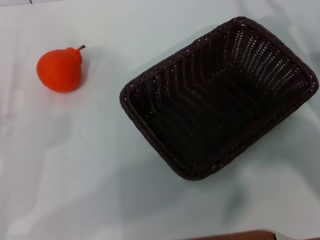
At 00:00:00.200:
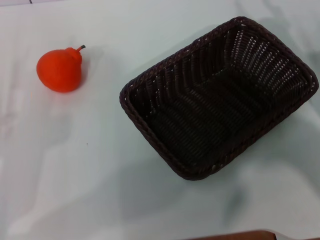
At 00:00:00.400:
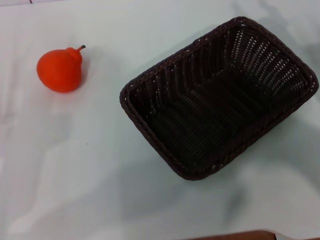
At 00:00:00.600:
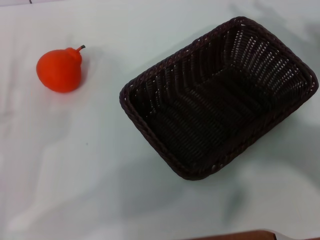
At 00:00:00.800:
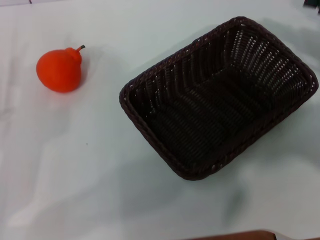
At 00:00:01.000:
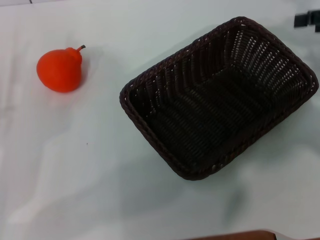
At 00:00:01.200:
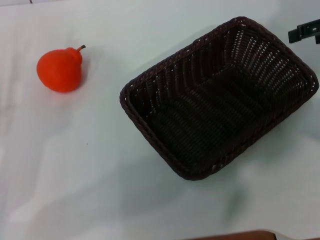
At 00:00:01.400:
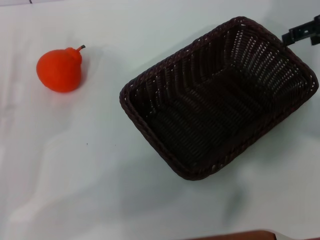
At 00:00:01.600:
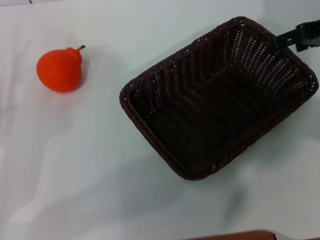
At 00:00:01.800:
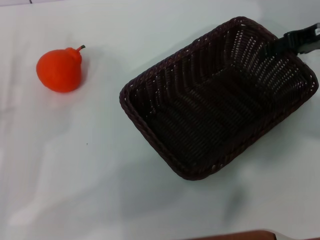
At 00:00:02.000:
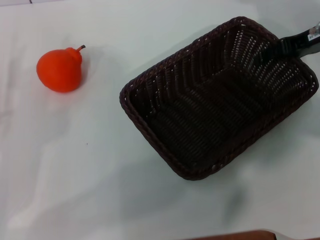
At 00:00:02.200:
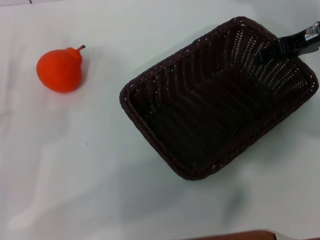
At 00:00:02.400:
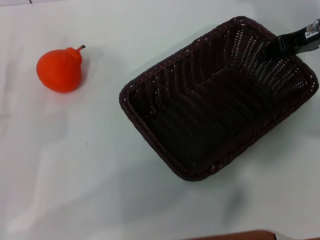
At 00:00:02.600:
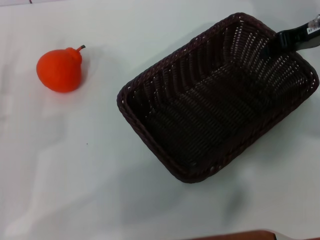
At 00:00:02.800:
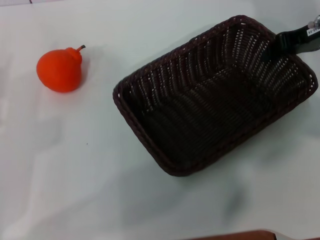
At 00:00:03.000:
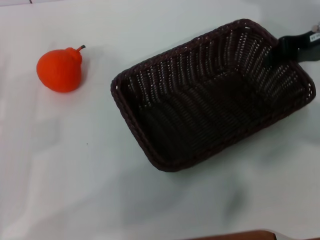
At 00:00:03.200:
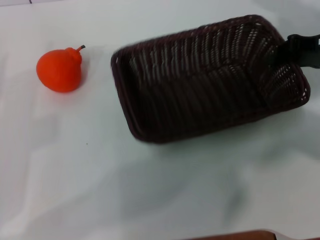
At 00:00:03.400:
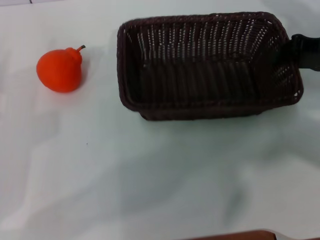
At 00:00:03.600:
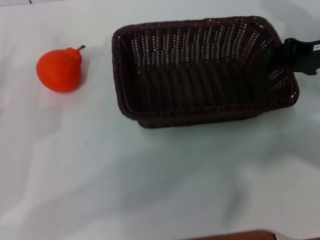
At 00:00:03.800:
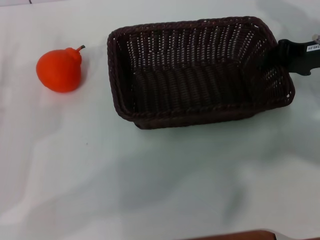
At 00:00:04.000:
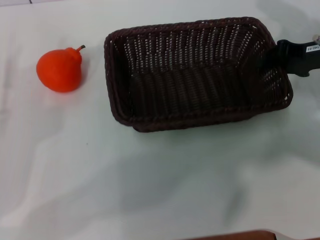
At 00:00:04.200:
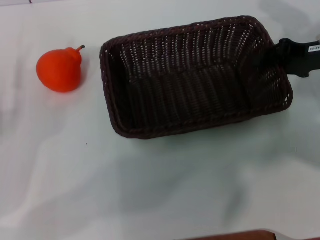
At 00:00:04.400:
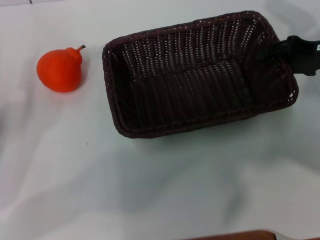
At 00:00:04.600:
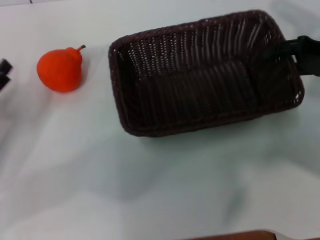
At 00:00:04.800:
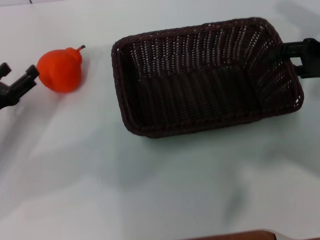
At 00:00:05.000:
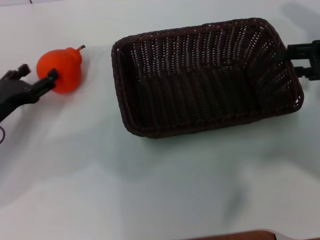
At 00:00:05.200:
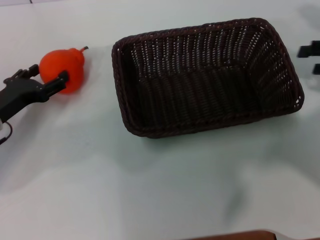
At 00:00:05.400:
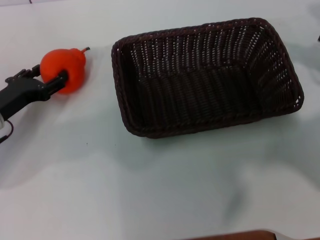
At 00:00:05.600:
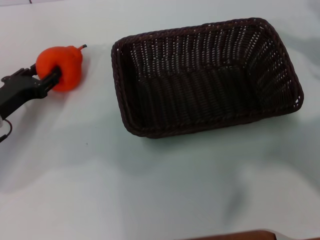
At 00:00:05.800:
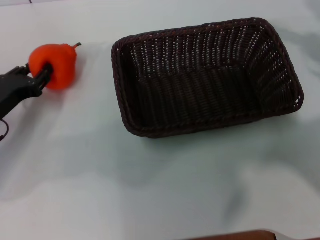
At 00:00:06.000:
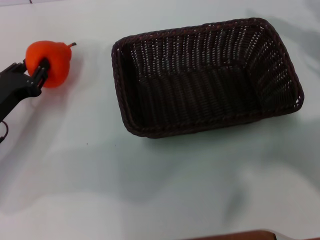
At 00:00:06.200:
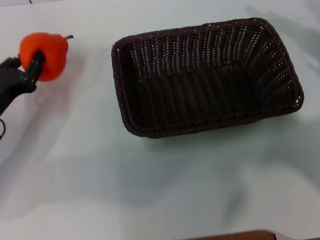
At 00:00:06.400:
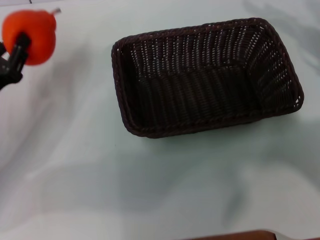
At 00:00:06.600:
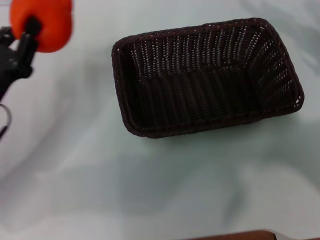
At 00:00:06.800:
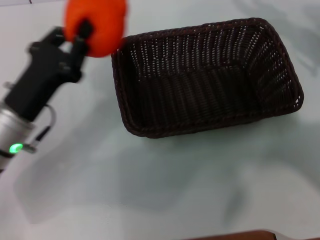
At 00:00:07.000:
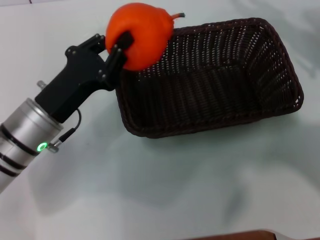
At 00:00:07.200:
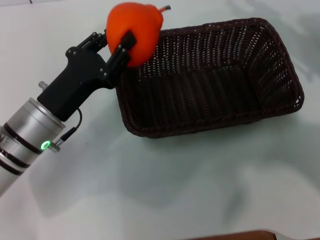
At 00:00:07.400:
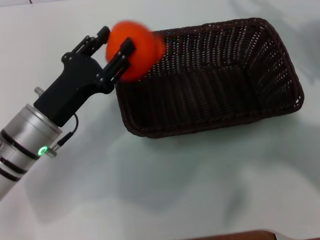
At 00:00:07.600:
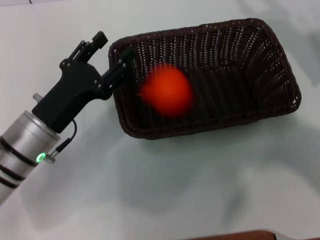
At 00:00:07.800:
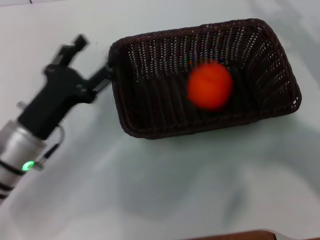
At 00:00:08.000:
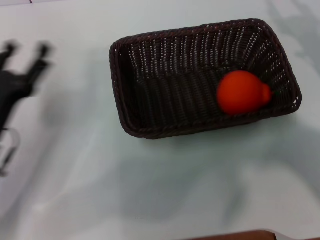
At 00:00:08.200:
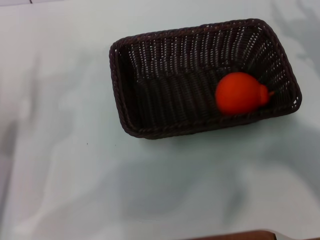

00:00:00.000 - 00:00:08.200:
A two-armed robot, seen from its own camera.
Task of the whole recording: the right gripper pick up the black basket and place it horizontally in the middle of the table, the left gripper pick up the orange and place it into the black basket.
Step, 00:00:00.000 - 00:00:02.600: Pick up the dark basket with the right gripper.
Step, 00:00:02.800 - 00:00:04.800: Place the dark basket in the center of view with the right gripper.
Step, 00:00:05.000 - 00:00:06.200: Pick up the orange with the left gripper.
Step, 00:00:06.400 - 00:00:07.400: Place the orange into the dark basket with the left gripper.
00:00:00.000 - 00:00:01.600: The right gripper goes about 15 cm upward and forward.
00:00:01.600 - 00:00:03.200: The right gripper closes up.
00:00:03.200 - 00:00:05.000: The left gripper shifts roughly 10 cm forward; the right gripper changes place by approximately 5 cm, and opens up.
00:00:05.000 - 00:00:06.600: The left gripper changes place by some 5 cm, and closes.
00:00:06.600 - 00:00:08.200: The right gripper travels downward by some 10 cm. The left gripper goes to the right and returns, about 10 cm each way, and opens.

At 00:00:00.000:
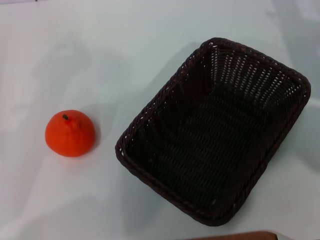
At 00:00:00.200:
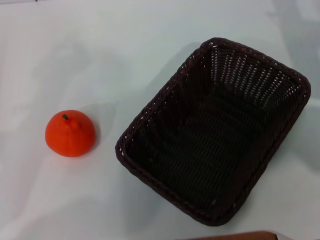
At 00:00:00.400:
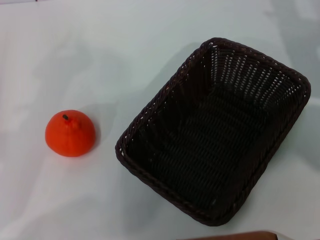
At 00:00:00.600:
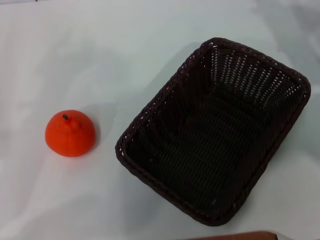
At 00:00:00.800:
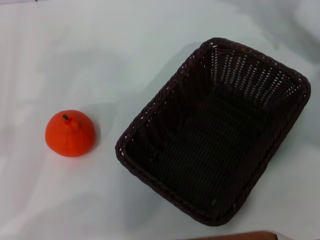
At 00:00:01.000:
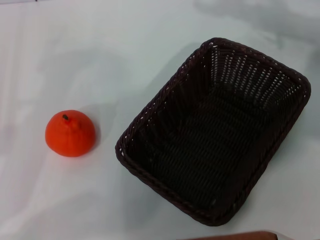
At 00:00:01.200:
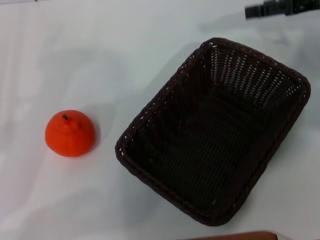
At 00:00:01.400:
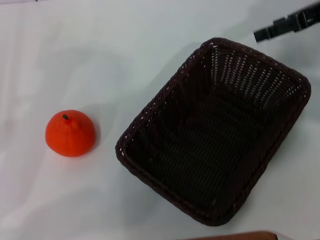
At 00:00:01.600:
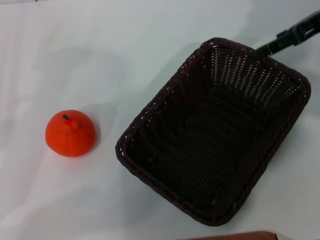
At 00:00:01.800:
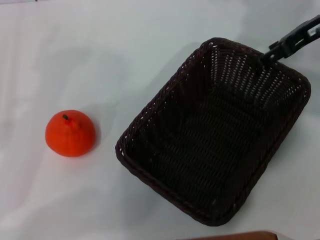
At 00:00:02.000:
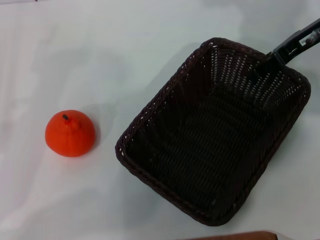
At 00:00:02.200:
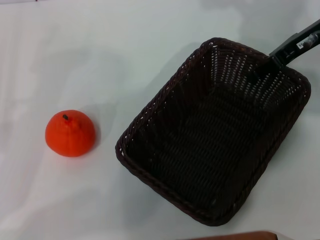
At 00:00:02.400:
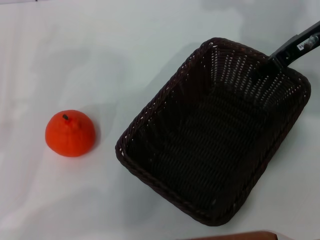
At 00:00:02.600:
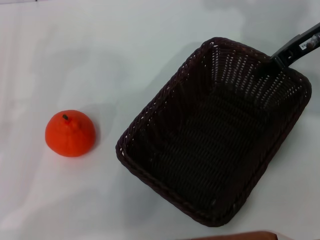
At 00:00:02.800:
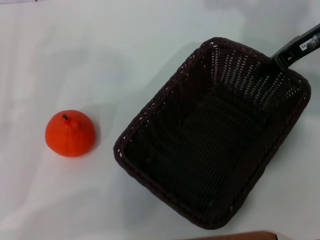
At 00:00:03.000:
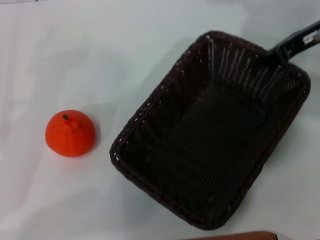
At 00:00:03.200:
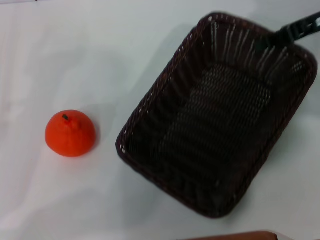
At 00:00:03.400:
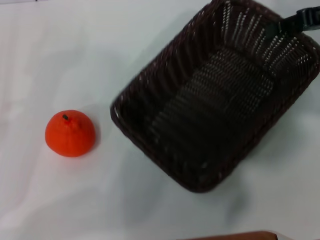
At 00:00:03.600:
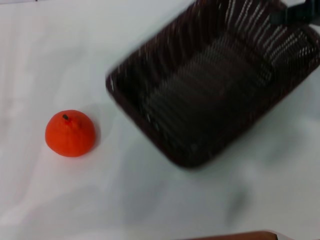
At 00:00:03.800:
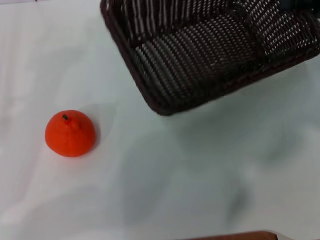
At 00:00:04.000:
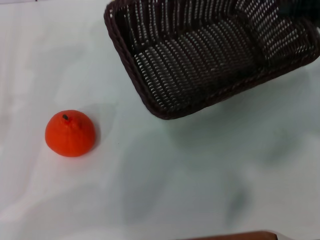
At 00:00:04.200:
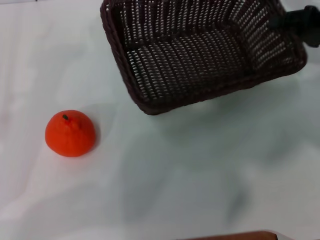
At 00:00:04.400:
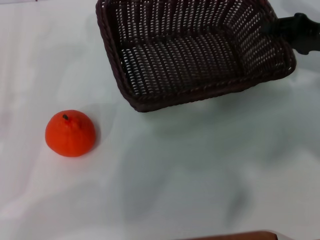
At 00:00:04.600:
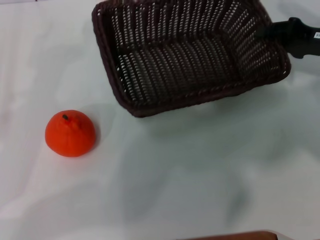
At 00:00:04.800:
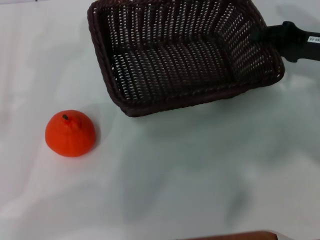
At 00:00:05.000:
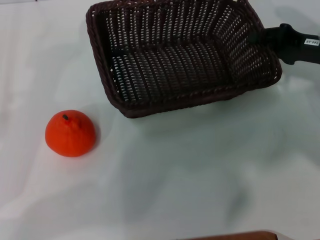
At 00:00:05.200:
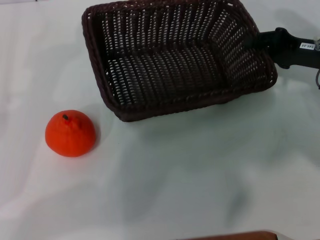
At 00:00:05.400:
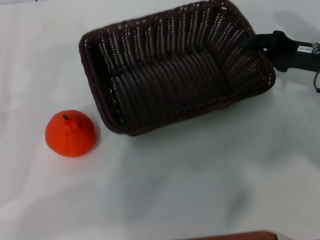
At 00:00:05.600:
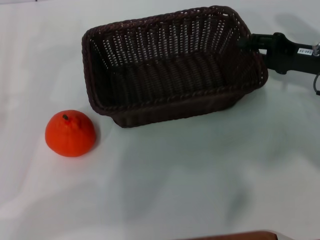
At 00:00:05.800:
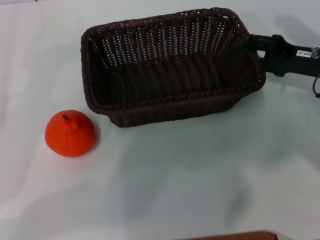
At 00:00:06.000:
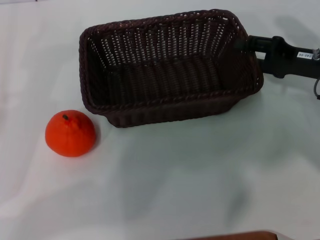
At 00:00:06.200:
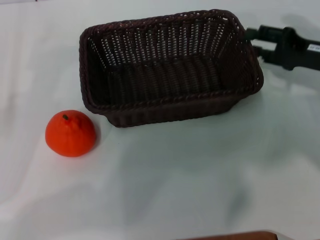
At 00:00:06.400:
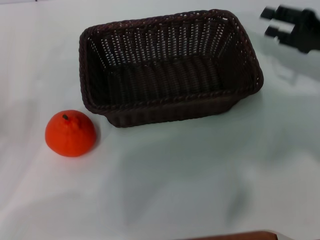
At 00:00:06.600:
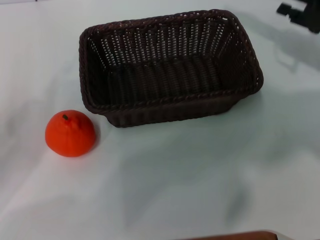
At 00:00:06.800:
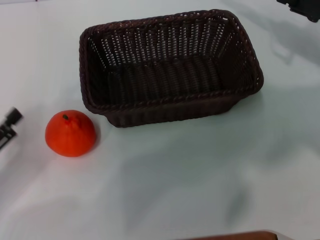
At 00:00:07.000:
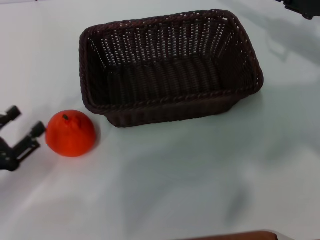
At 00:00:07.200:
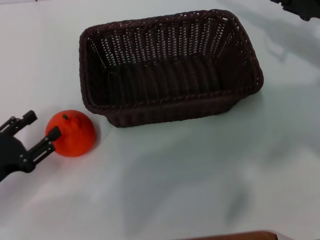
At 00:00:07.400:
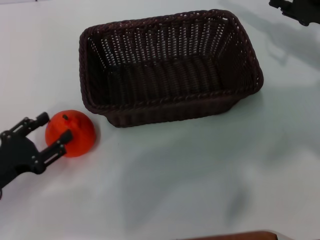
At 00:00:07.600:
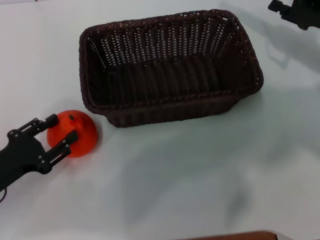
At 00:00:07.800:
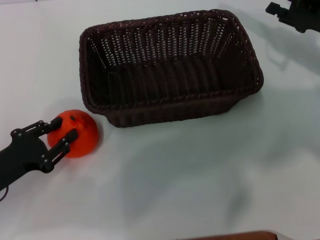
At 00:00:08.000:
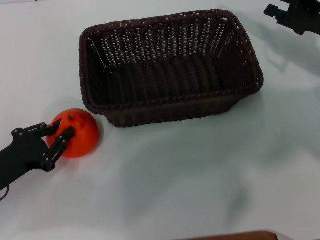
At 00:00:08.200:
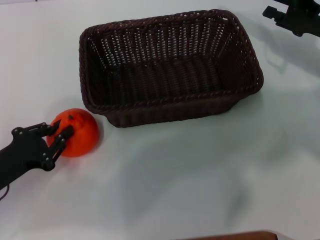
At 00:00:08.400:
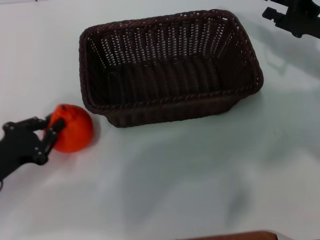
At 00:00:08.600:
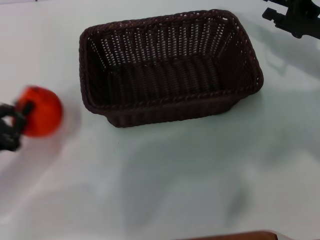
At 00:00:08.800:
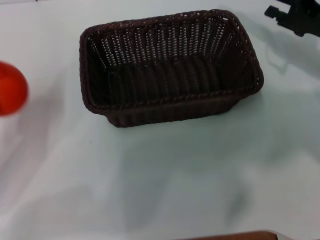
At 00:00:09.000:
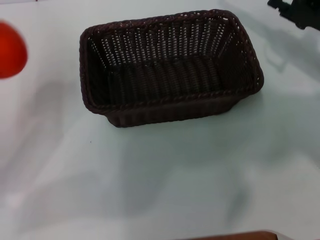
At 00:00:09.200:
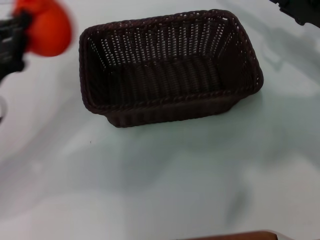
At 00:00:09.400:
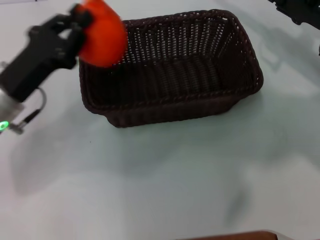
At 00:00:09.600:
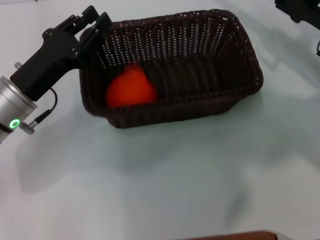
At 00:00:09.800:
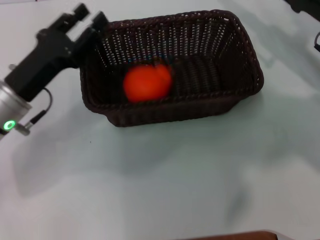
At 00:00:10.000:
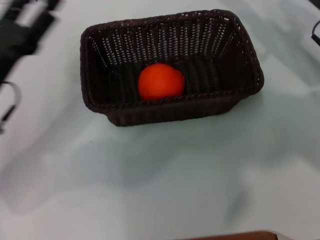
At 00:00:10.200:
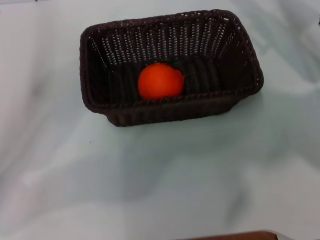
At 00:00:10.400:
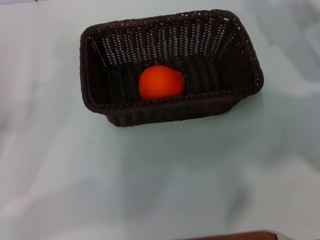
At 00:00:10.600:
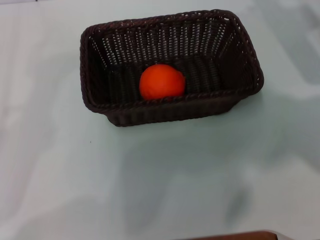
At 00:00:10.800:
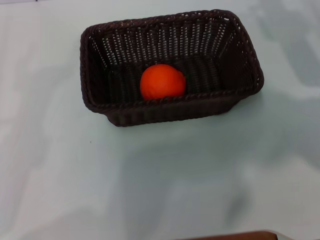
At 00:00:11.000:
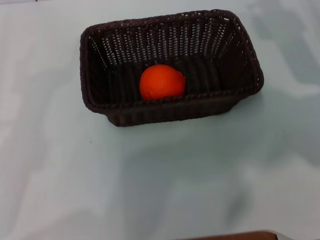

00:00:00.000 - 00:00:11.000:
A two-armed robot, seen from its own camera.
Task of the whole recording: the right gripper pick up the black basket and place it horizontally in the middle of the table, the left gripper pick up the orange and place it into the black basket.
Step, 00:00:00.000 - 00:00:03.200: Pick up the dark basket with the right gripper.
Step, 00:00:03.400 - 00:00:06.200: Place the dark basket in the center of view with the right gripper.
Step, 00:00:06.600 - 00:00:08.400: Pick up the orange with the left gripper.
Step, 00:00:08.800 - 00:00:09.600: Place the orange into the dark basket with the left gripper.
00:00:00.000 - 00:00:01.600: The right gripper travels upward by about 10 cm.
00:00:01.600 - 00:00:03.200: The right gripper closes its fingers.
00:00:03.200 - 00:00:04.800: The right gripper moves downward, about 10 cm.
00:00:04.800 - 00:00:06.200: The right gripper opens up.
00:00:06.200 - 00:00:07.800: The left gripper heads to the right, covering about 5 cm.
00:00:07.800 - 00:00:09.400: The left gripper heads forward, to the right and upward, covering some 10 cm, and closes up.
00:00:09.400 - 00:00:11.000: The left gripper goes some 20 cm backward and to the left, and opens up.
